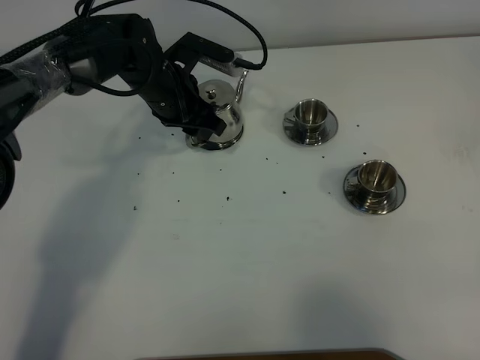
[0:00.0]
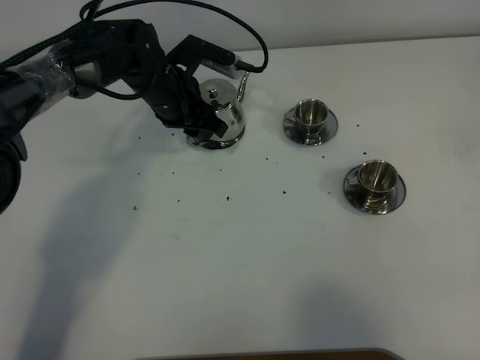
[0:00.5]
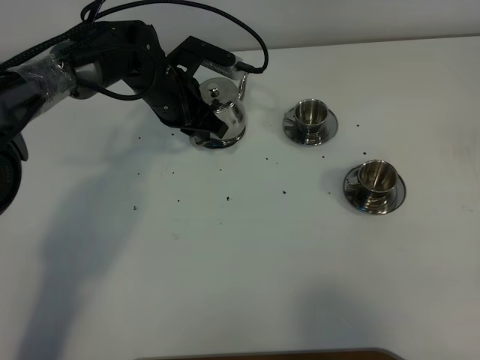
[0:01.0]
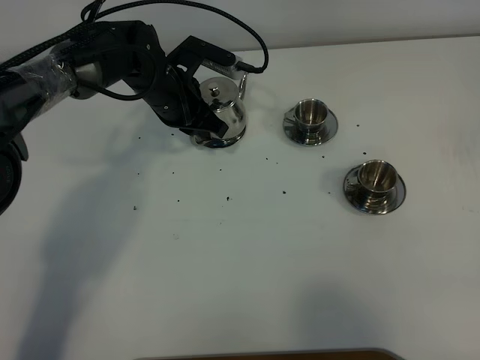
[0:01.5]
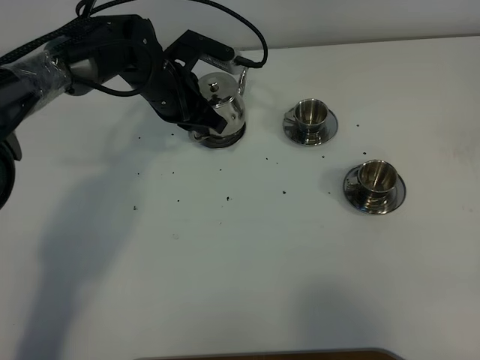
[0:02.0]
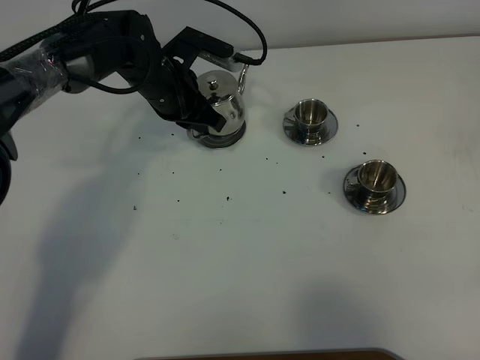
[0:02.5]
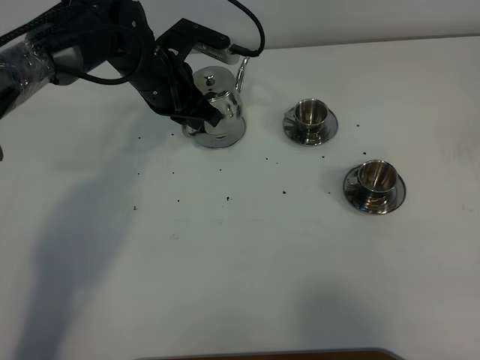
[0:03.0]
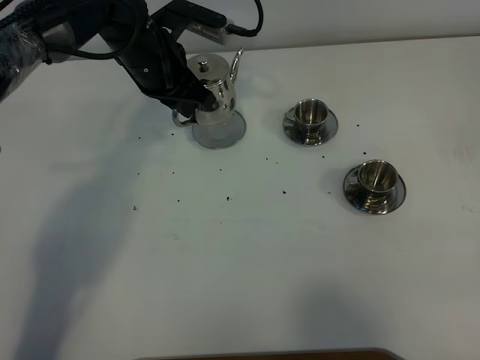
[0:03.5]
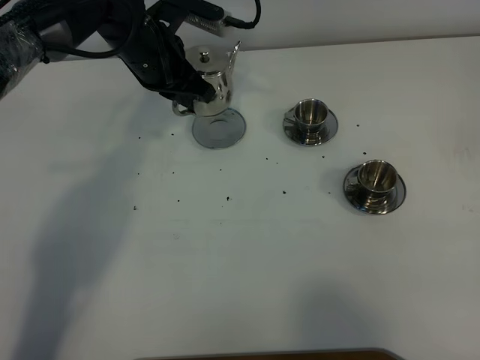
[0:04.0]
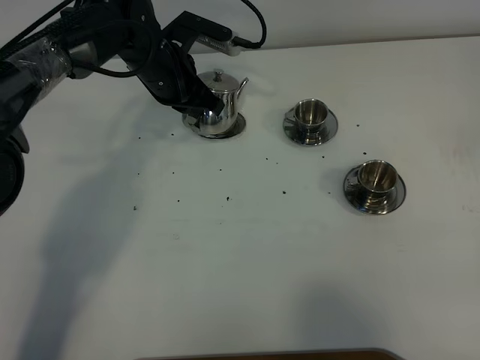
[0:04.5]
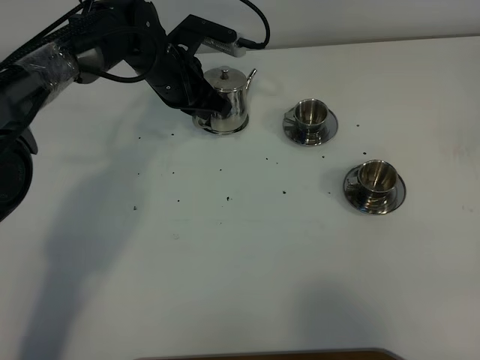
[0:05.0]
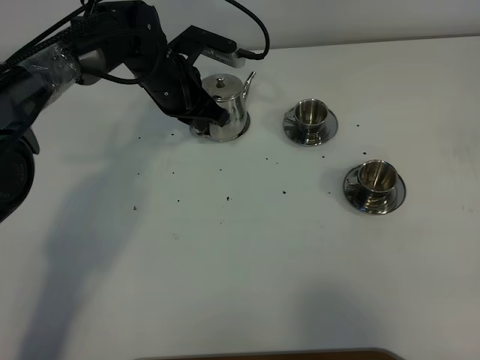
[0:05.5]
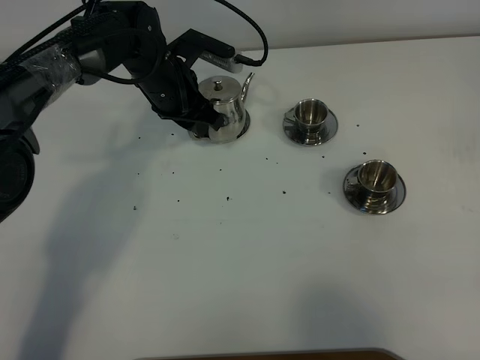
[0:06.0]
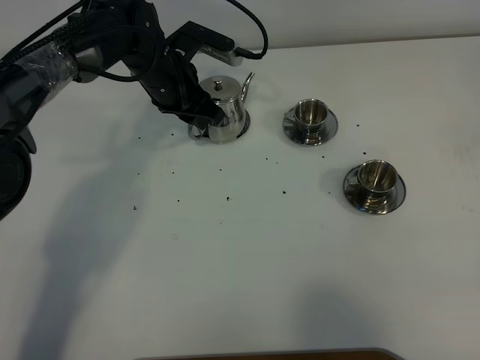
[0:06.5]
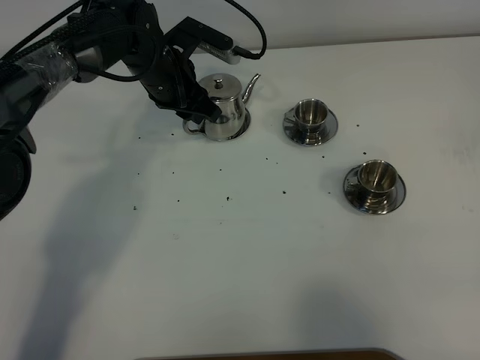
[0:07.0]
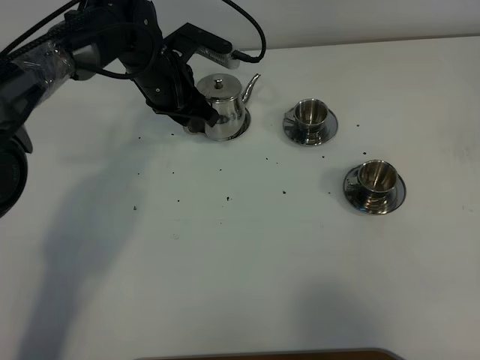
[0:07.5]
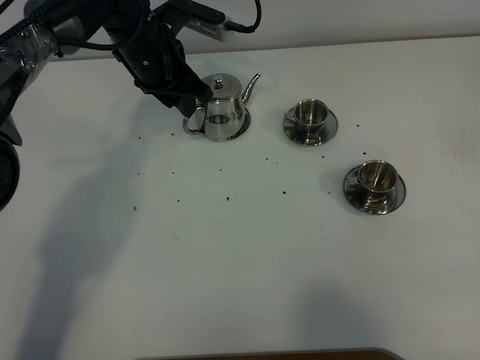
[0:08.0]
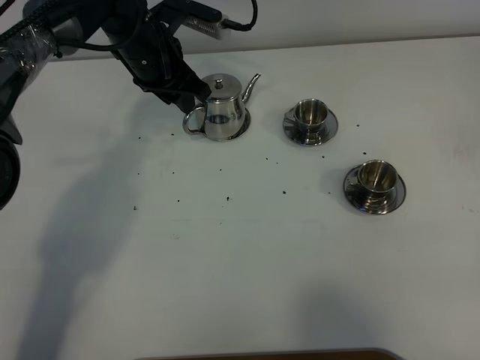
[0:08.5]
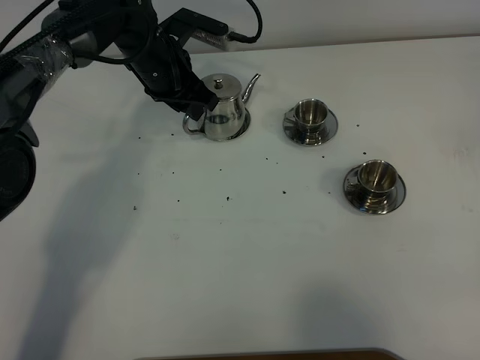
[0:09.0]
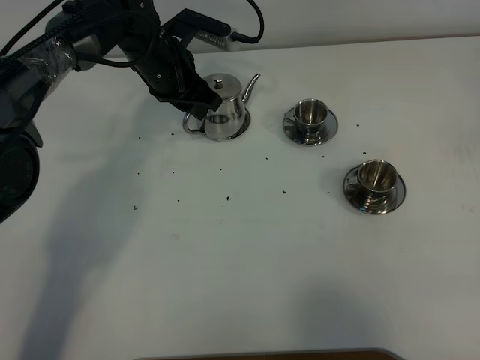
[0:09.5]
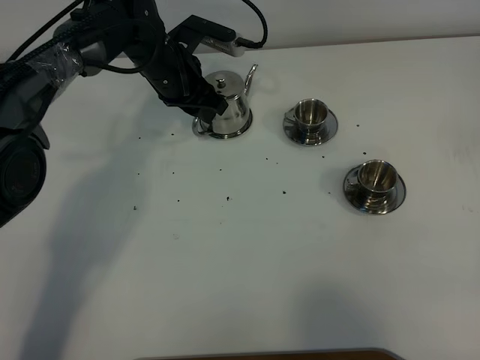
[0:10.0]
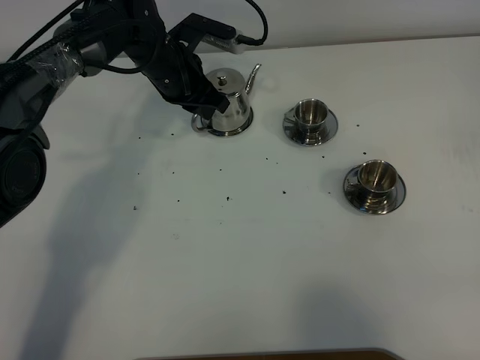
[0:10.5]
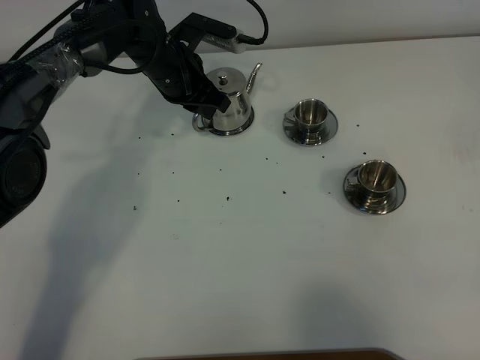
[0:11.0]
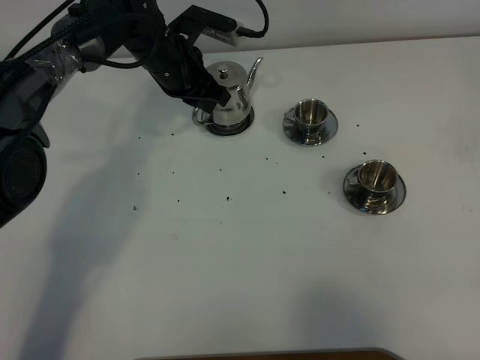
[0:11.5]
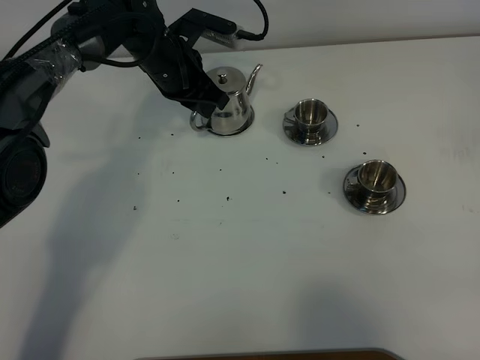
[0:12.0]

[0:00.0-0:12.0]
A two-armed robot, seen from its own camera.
Task of the whole recording: grasp the stainless steel teapot and pour the tea into the two stainless steel teacups one by one, put the stainless steel teapot back in its original place.
0:00.0 to 0:02.0: The left gripper closes its fingers.
0:02.0 to 0:04.0: The left gripper travels upward by some 5 cm.
0:04.0 to 0:06.0: The left gripper moves downward, approximately 5 cm, and opens its fingers.
0:06.0 to 0:08.0: The left gripper heads upward, covering roughly 5 cm.
0:08.0 to 0:10.0: The left gripper moves downward, approximately 5 cm.
0:10.0 to 0:12.0: The left gripper closes its fingers.

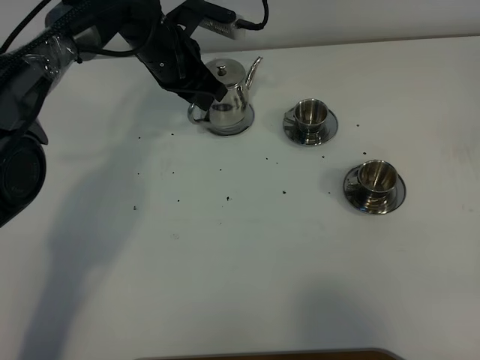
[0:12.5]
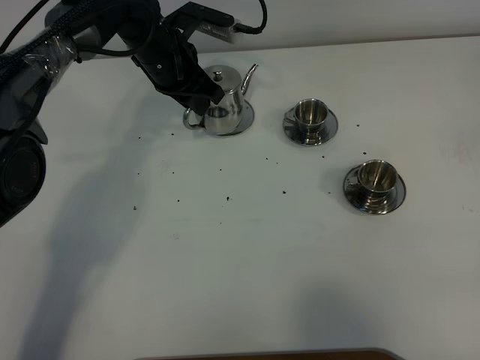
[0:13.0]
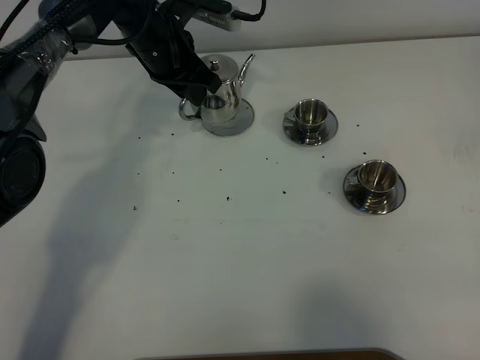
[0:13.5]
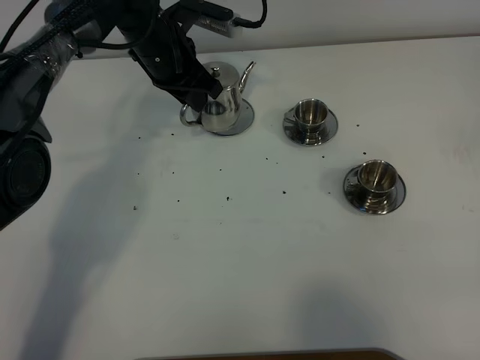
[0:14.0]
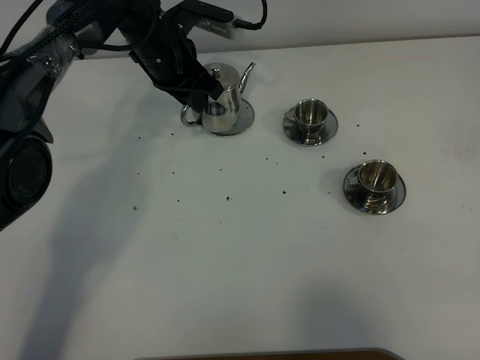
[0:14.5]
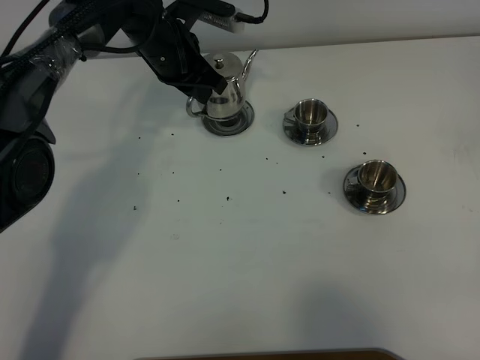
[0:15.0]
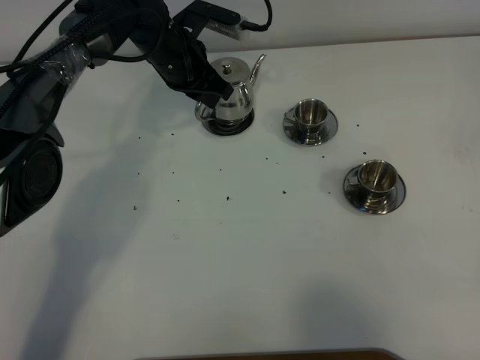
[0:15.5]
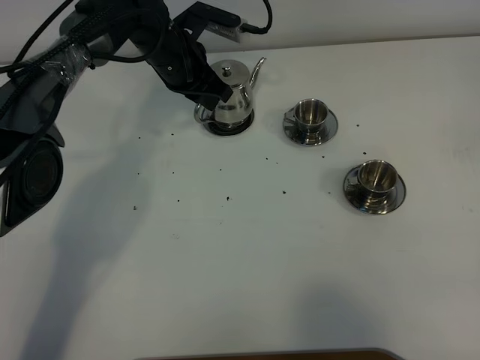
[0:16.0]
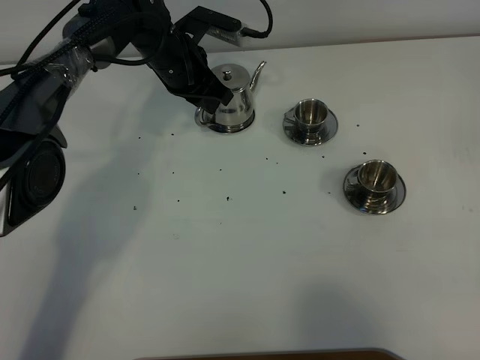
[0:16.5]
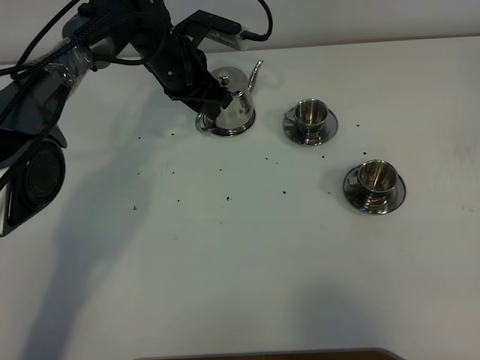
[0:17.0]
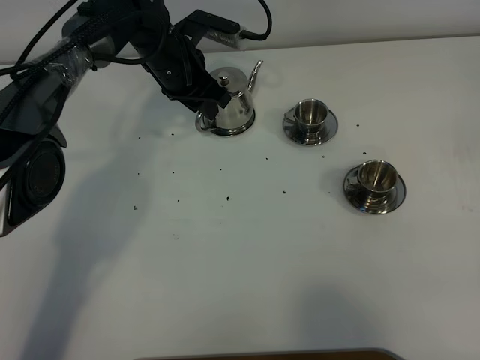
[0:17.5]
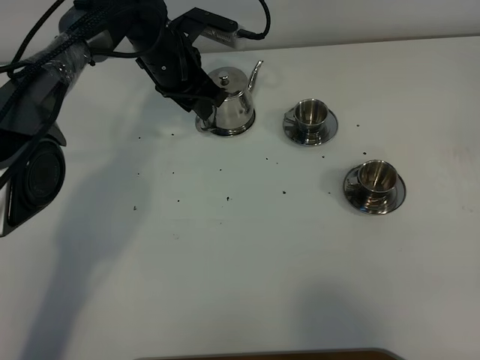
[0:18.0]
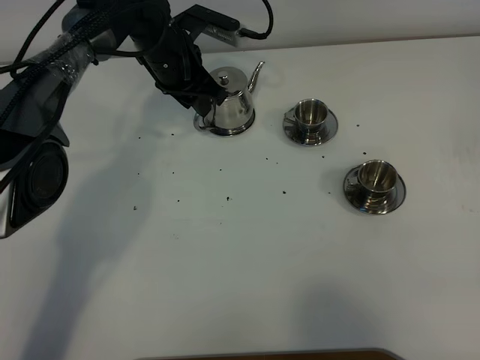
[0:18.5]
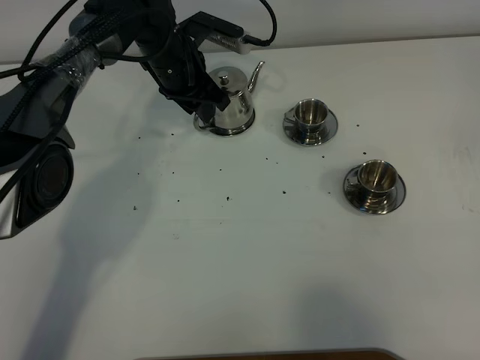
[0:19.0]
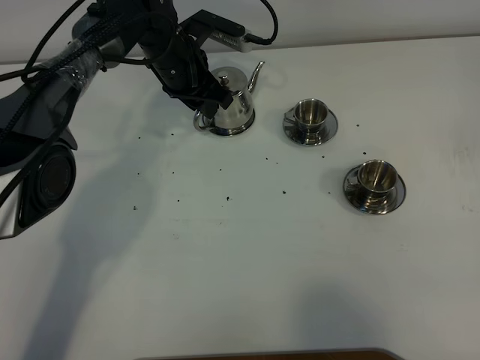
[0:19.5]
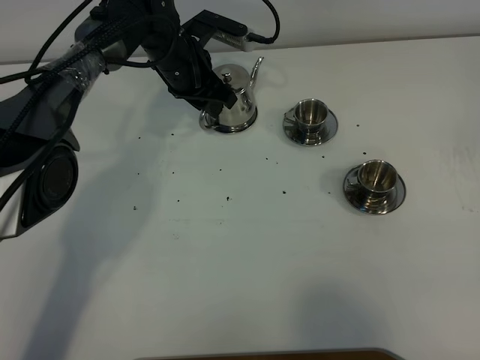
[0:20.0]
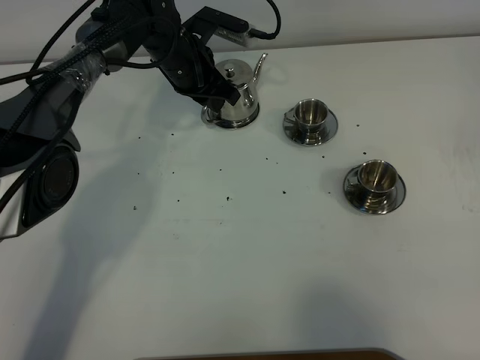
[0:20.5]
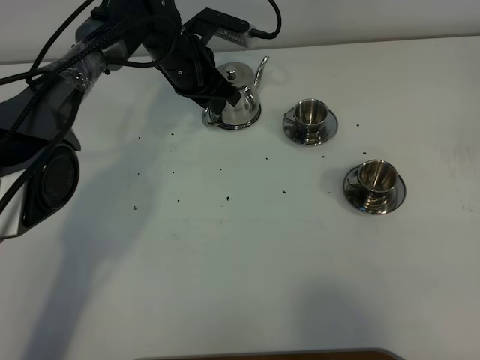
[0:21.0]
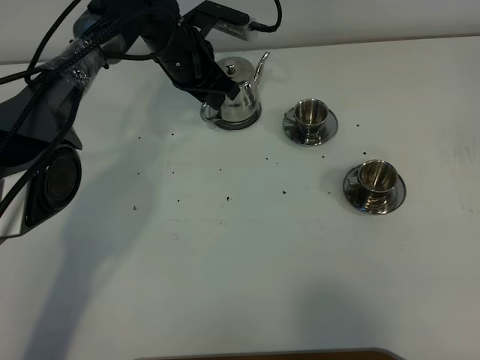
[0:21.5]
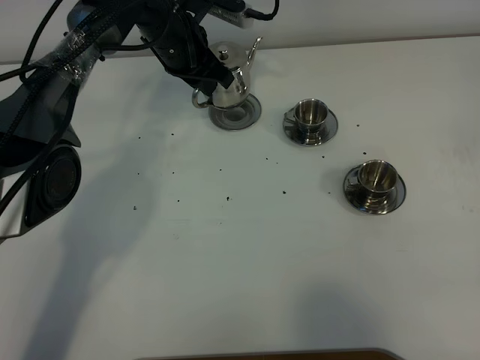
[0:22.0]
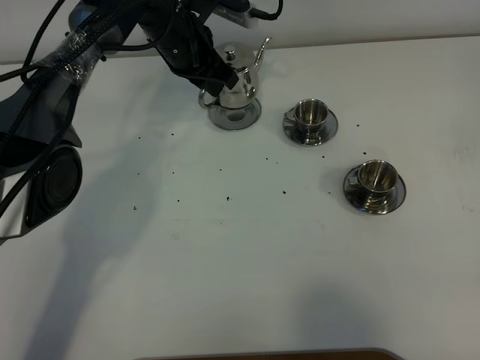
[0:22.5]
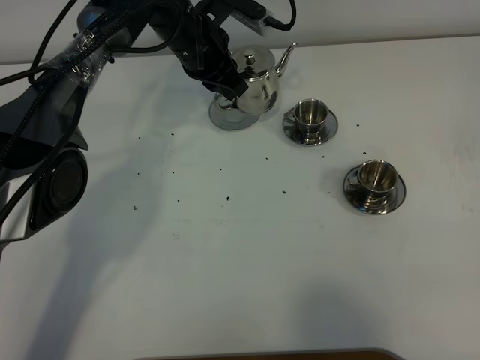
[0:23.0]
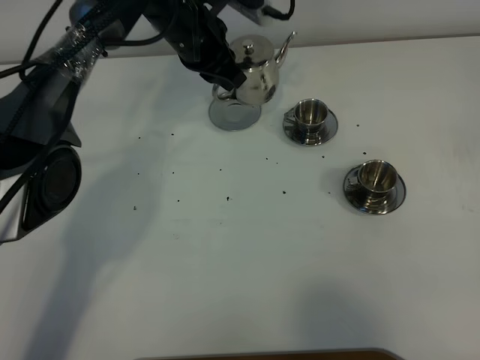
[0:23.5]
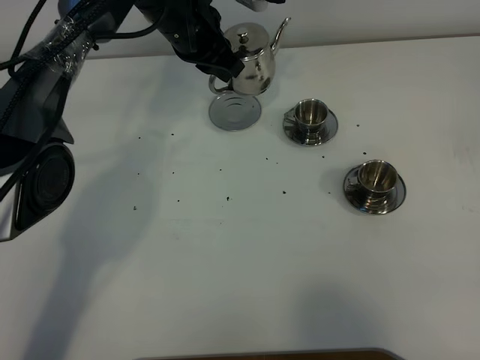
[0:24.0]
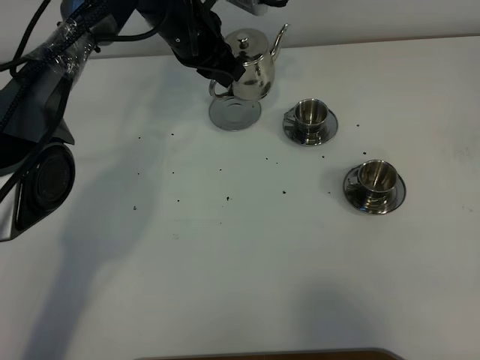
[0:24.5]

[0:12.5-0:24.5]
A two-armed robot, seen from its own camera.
Task of the whole recording: grasp the stainless steel teapot and pour the tea into the two stainless steel teacups one by one, put the stainless steel teapot back in its original place.
Step, 0:12.5 to 0:21.5: Pick up the teapot with the left gripper.
0:12.5 to 0:16.5: The grippers make only small movements.
0:16.5 to 0:18.5: The left gripper opens its fingers.
0:18.5 to 0:20.5: The left gripper closes.
0:20.5 to 0:22.5: The grippers make only small movements.
0:22.5 to 0:24.5: There are only small adjustments of the grippers.

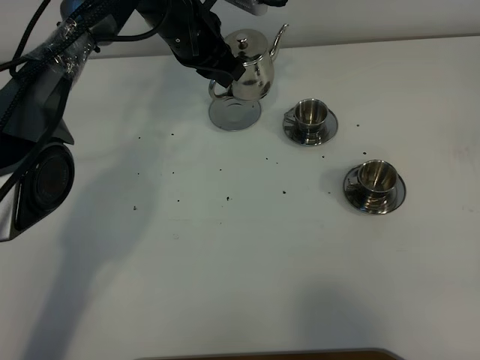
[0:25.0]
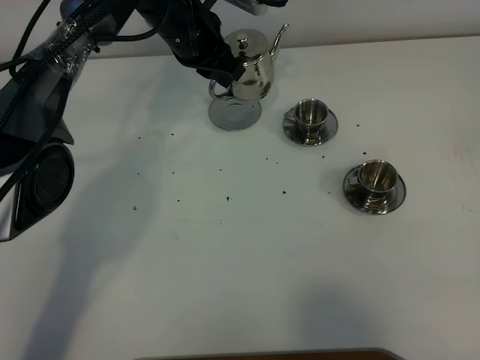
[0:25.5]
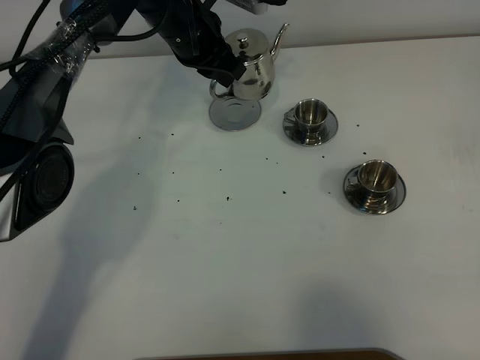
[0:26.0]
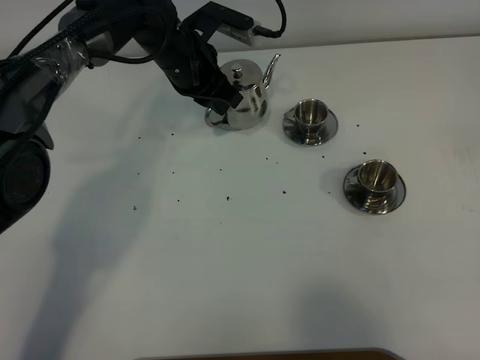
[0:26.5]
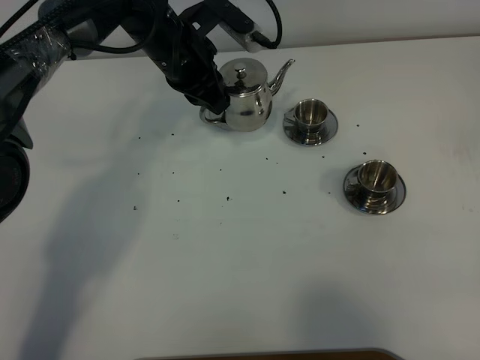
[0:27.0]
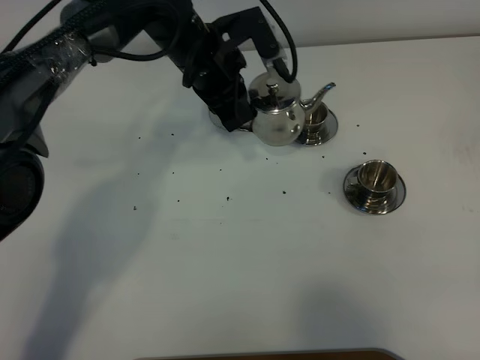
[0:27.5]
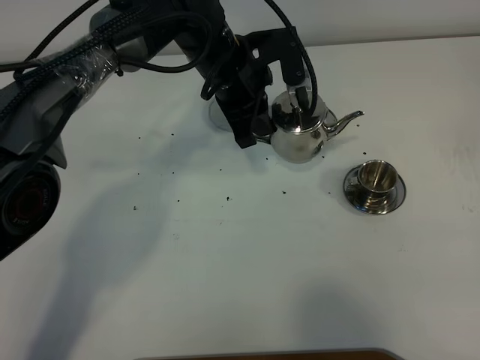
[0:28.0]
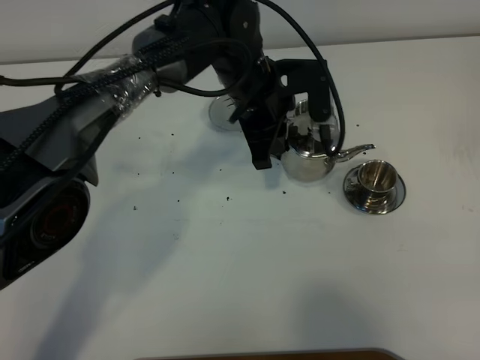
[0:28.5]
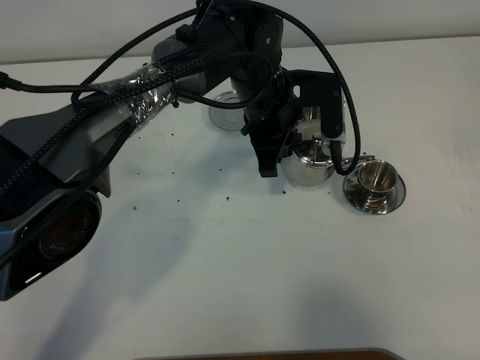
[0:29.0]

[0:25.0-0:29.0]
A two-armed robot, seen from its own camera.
Task of the whole recording: grasp the stainless steel teapot and pour the tea into the two stainless steel teacups one by one, put the stainless steel teapot back in its original place.
0:25.0 to 0:27.0: The grippers stay close to where they were, moving slightly.
0:27.0 to 0:29.0: The left gripper shifts approximately 15 cm to the right and backward.
